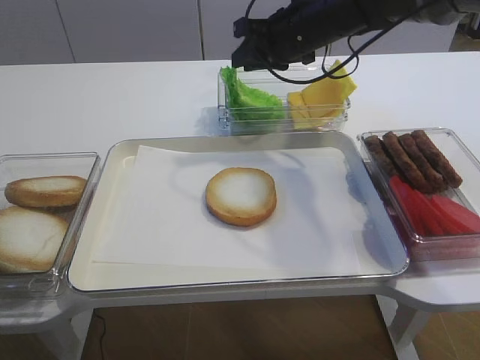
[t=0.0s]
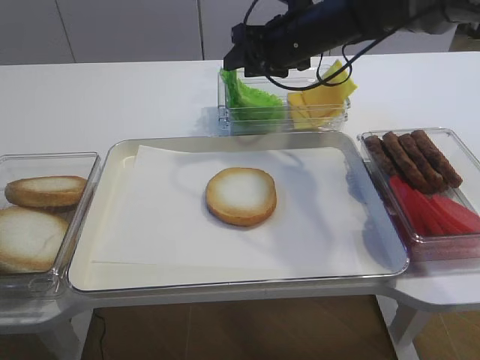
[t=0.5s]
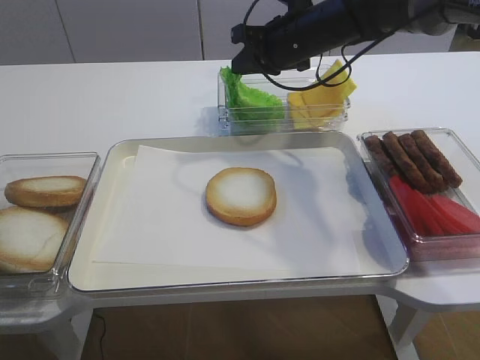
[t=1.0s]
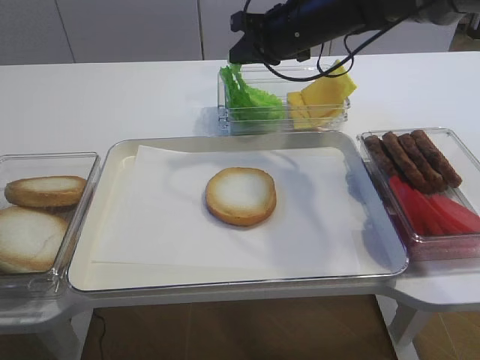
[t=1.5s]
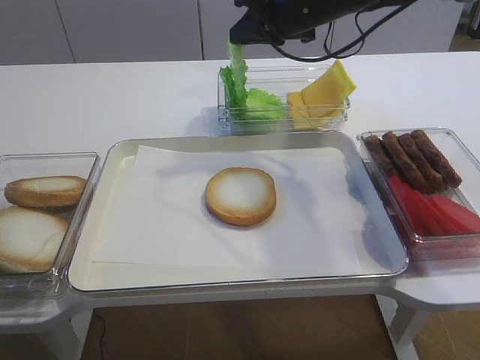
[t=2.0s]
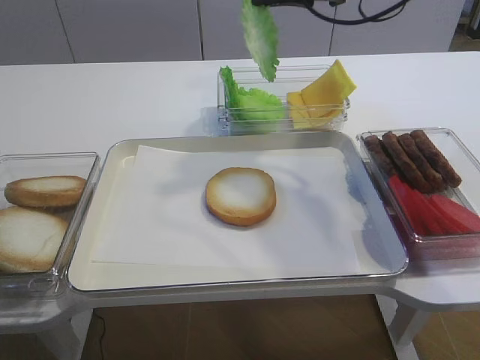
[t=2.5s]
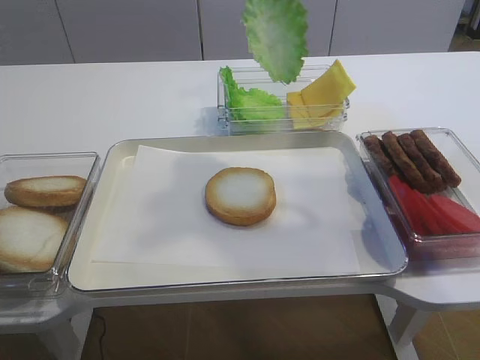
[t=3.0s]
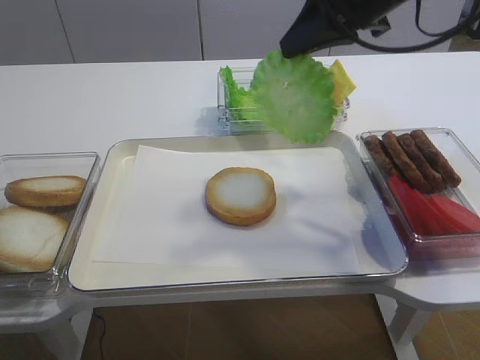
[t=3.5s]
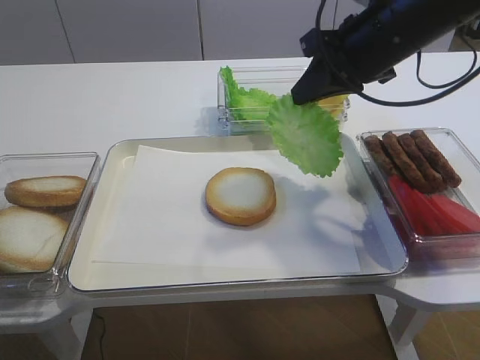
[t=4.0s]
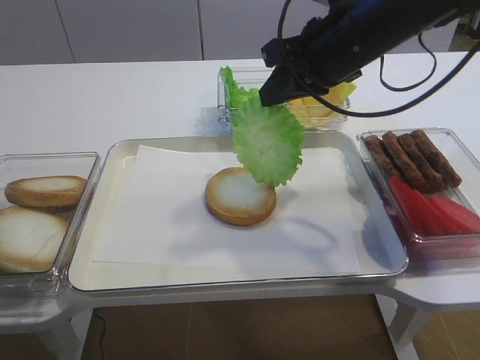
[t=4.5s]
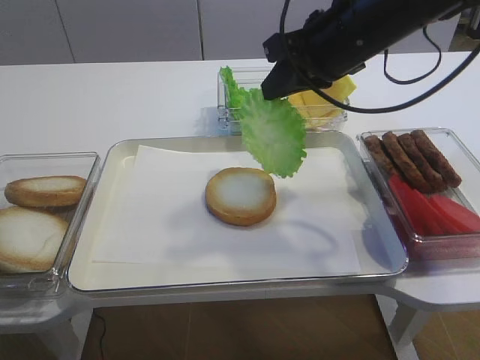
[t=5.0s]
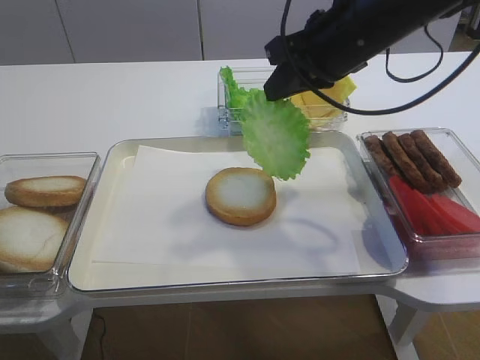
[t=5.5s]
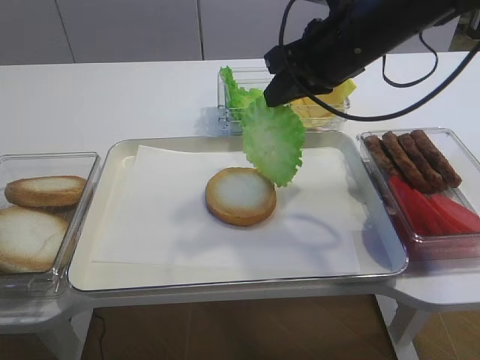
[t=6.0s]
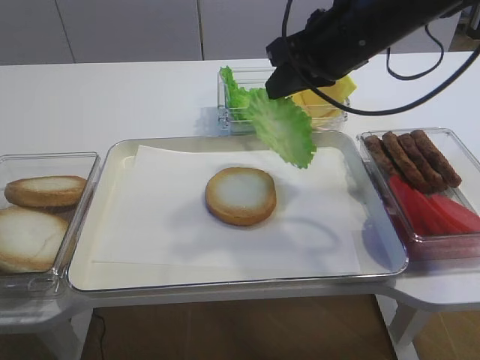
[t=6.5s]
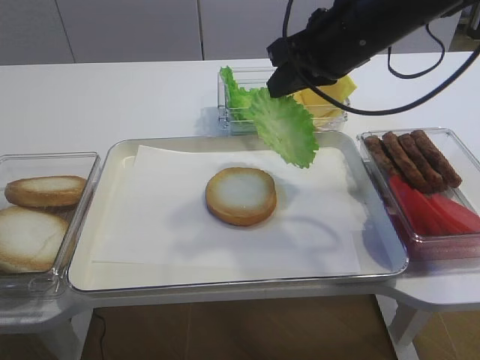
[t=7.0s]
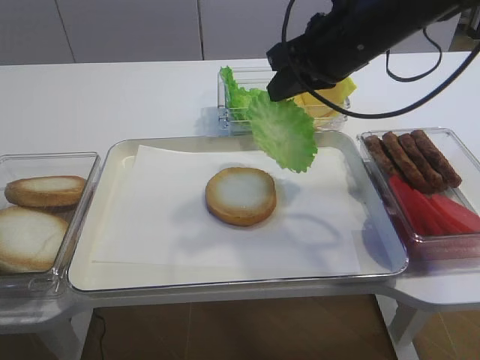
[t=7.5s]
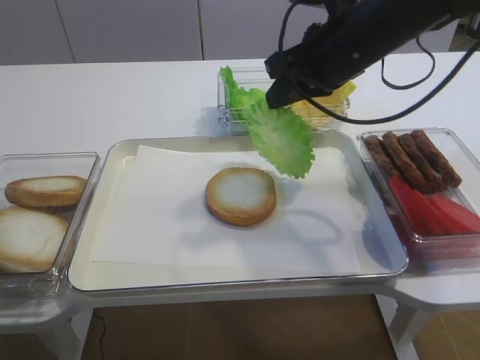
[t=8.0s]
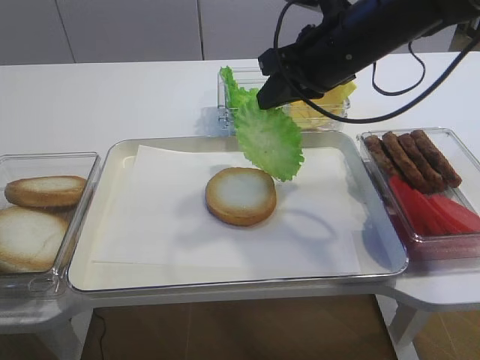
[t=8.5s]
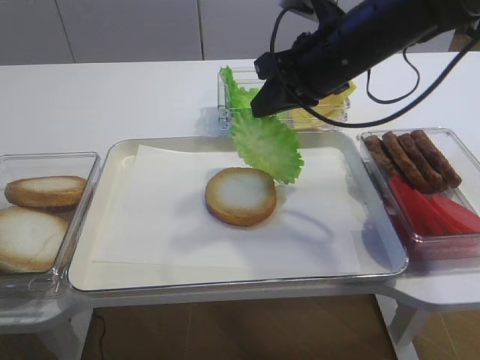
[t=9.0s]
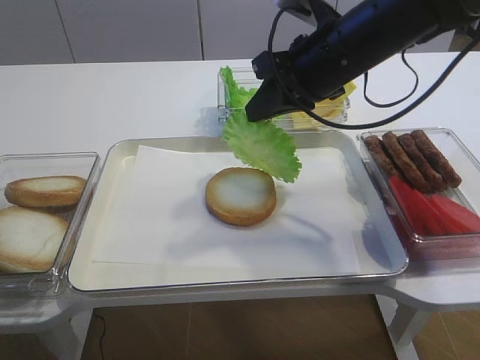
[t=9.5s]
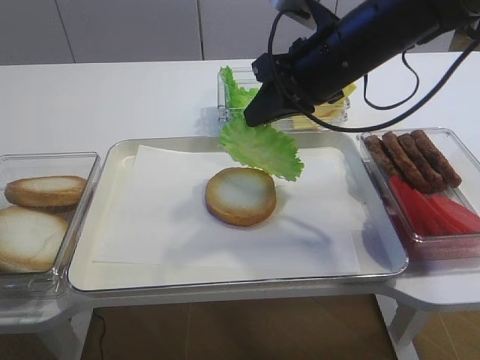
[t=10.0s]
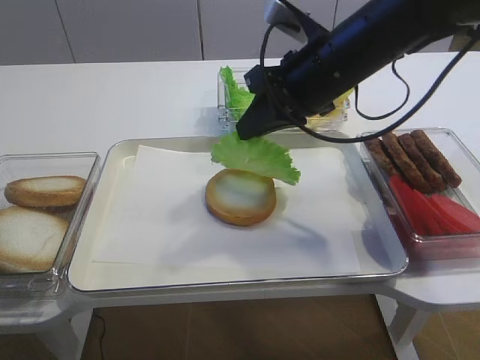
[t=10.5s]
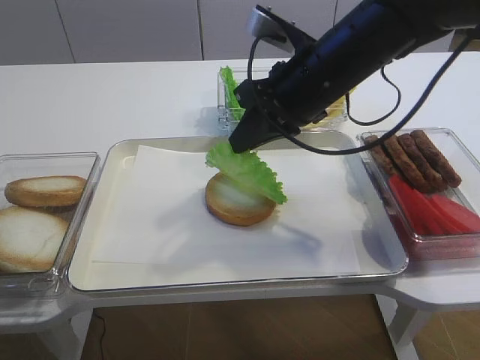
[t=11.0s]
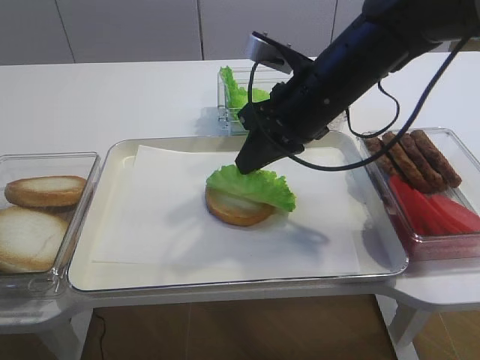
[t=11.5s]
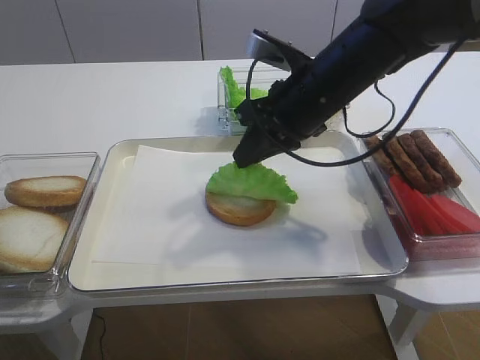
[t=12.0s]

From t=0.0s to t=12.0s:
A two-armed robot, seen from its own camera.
Step, from t=0.0s to t=2.0s: Pick up the lettuce leaf with the right gripper.
From t=0.0s to t=2.0s: The right gripper opens, then closes again.
From t=2.0s to t=4.0s: The right gripper is displaced backward and to the right by about 10 cm.
From t=4.0s to t=6.0s: The grippers stay close to where they were, moving slightly.
From t=6.0s to t=8.0s: The two grippers keep their place.
From t=8.0s to t=10.0s: The grippers make only small movements.
From t=10.0s to t=12.0s: The grippers stay close to where they were, moving slightly.

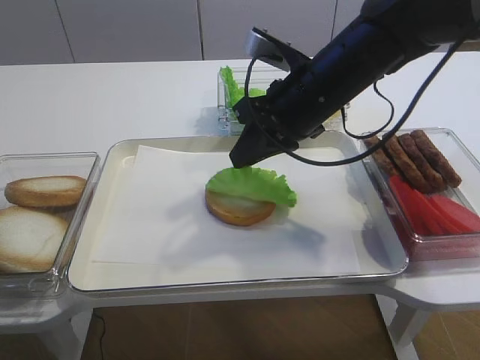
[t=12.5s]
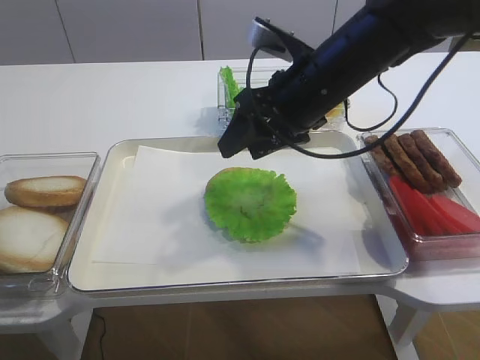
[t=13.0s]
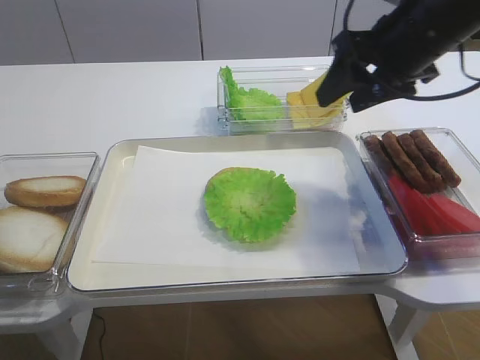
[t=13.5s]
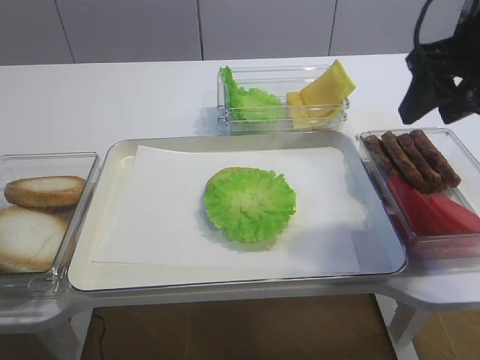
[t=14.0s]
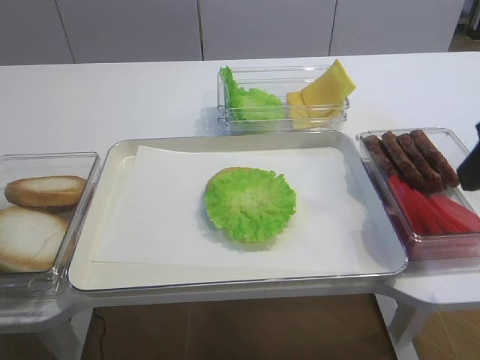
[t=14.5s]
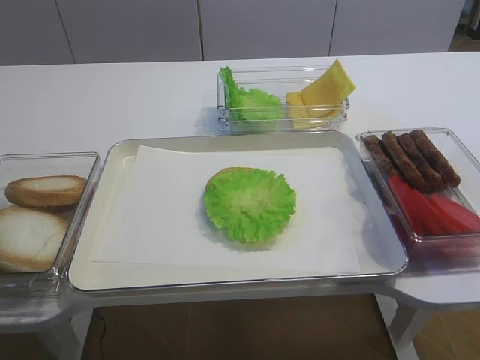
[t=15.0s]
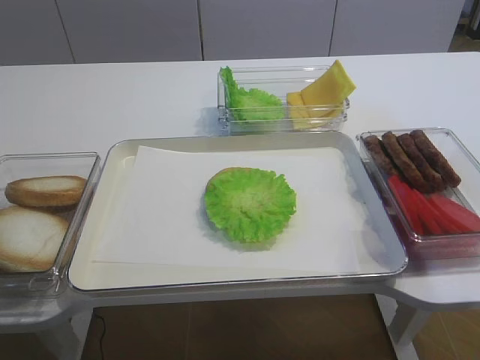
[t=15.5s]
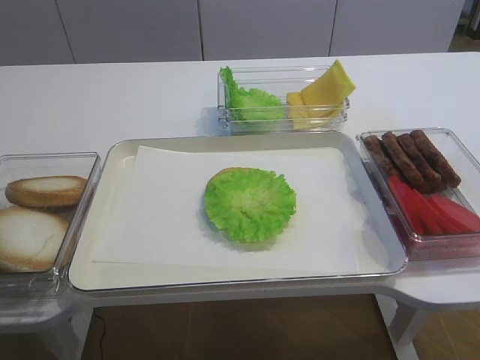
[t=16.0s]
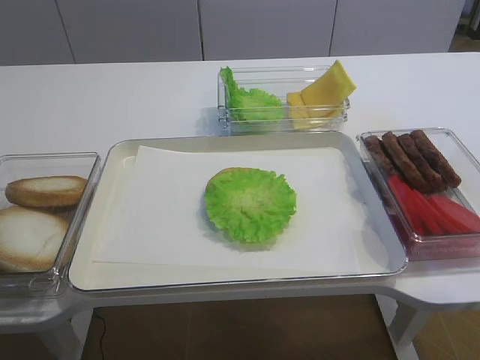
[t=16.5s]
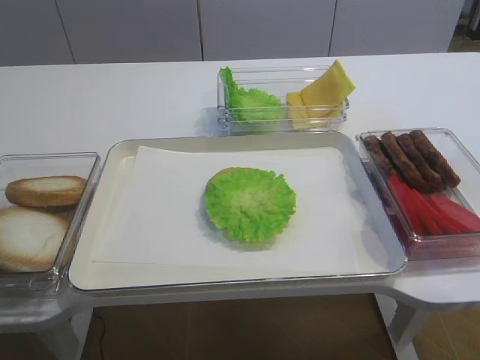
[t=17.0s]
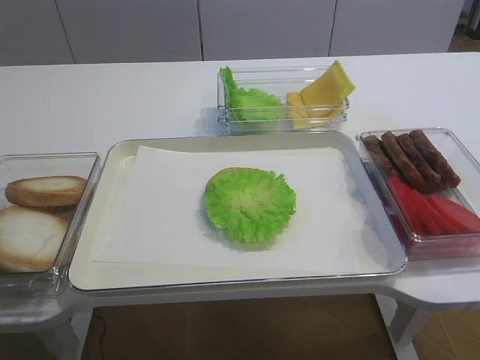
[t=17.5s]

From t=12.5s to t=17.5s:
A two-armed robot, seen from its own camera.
From t=12.5s to t=15.0s: The right gripper travels backward and to the right by about 30 cm, and opens up.
From t=15.0s to t=17.5s: The right gripper shifts approximately 10 cm backward.

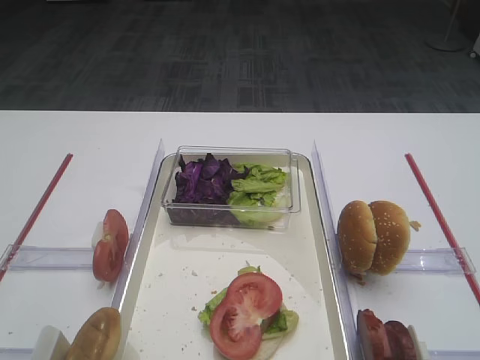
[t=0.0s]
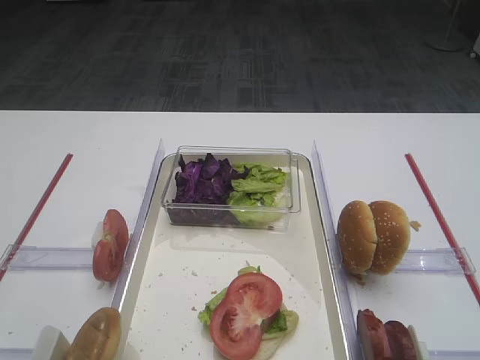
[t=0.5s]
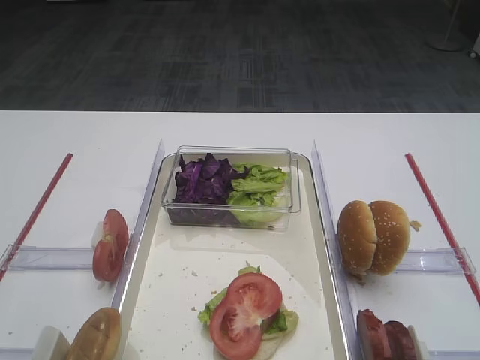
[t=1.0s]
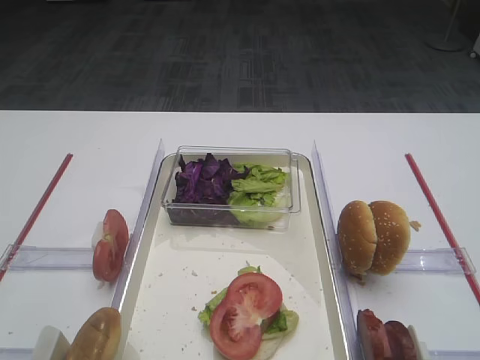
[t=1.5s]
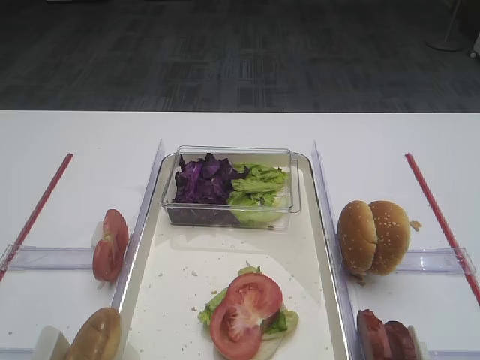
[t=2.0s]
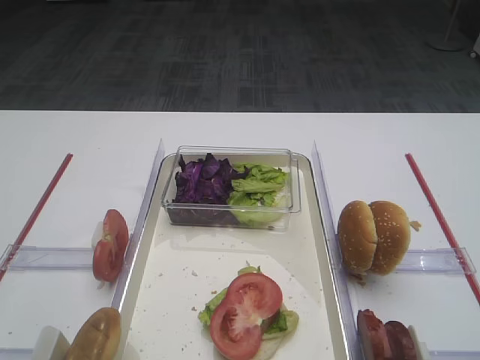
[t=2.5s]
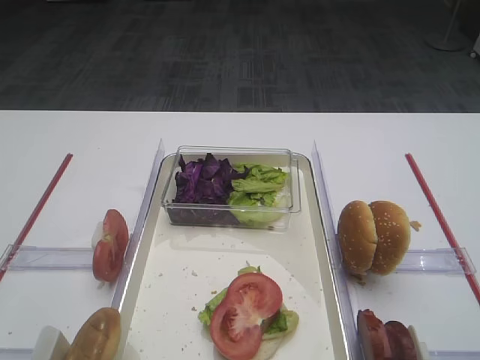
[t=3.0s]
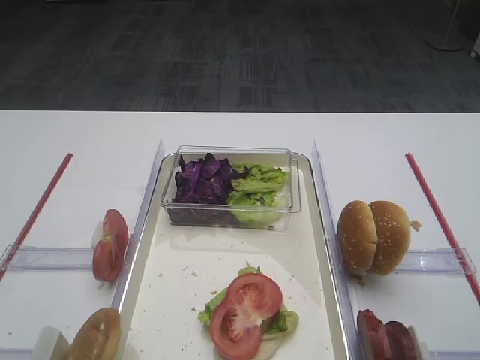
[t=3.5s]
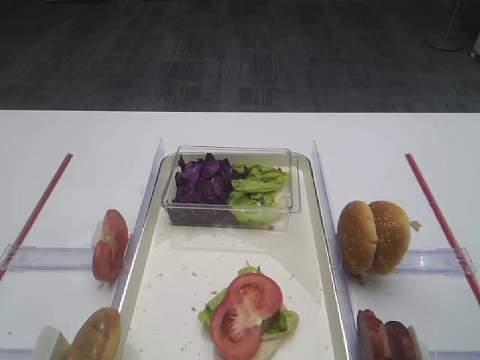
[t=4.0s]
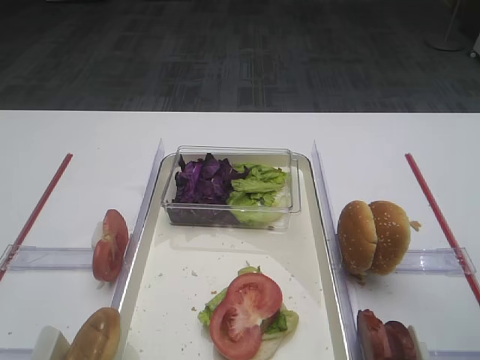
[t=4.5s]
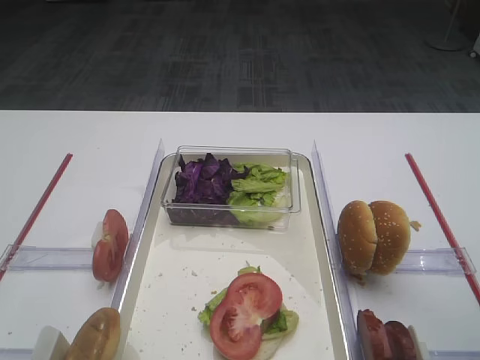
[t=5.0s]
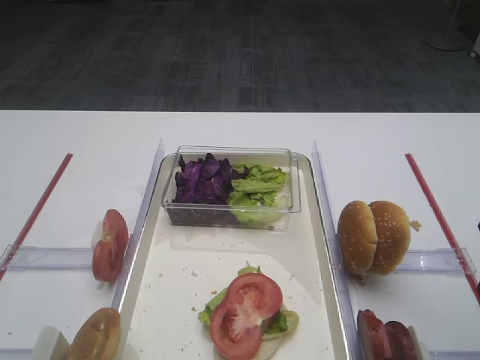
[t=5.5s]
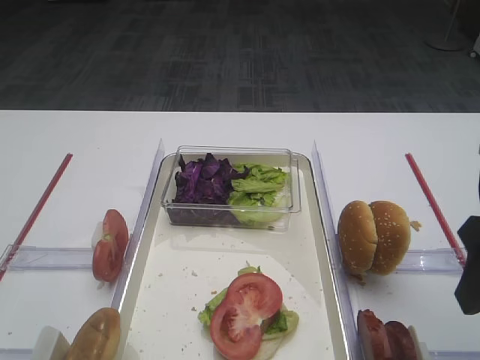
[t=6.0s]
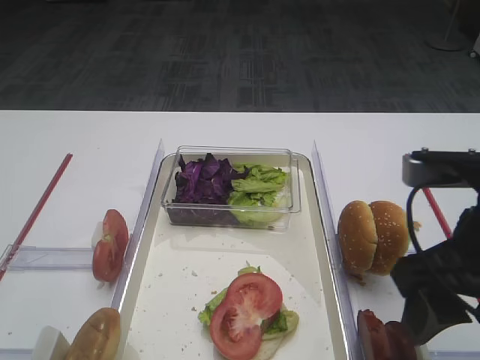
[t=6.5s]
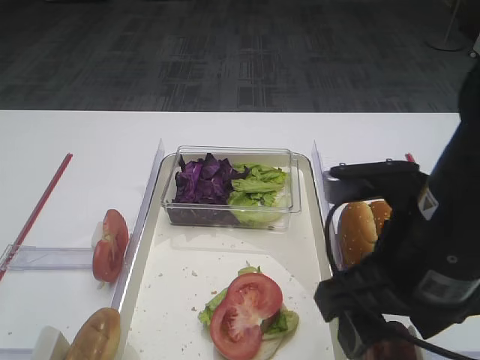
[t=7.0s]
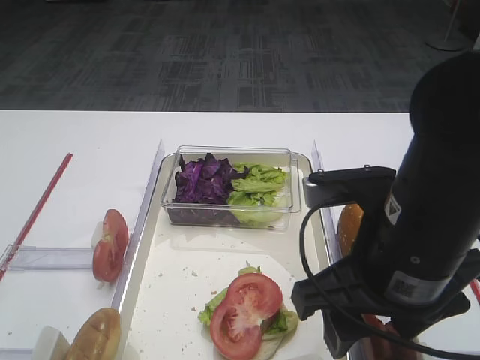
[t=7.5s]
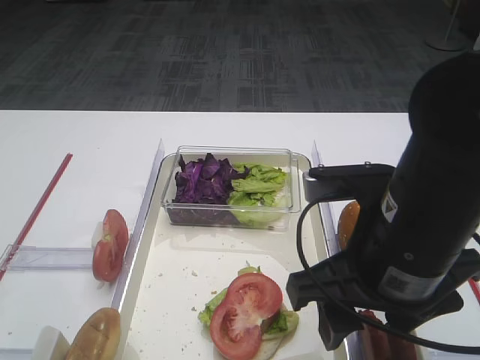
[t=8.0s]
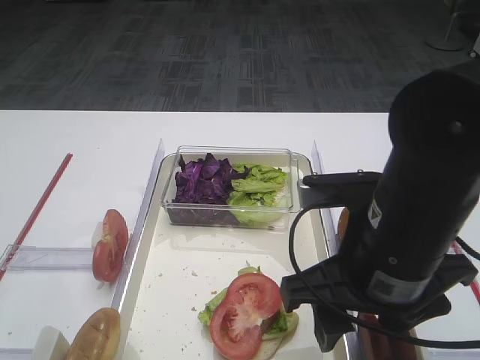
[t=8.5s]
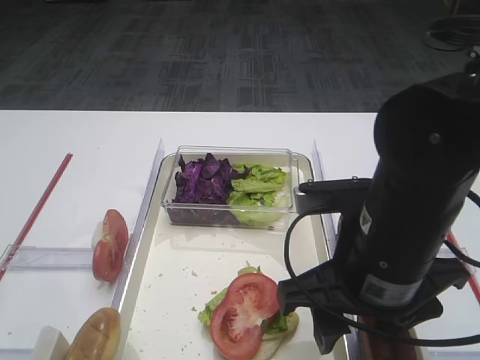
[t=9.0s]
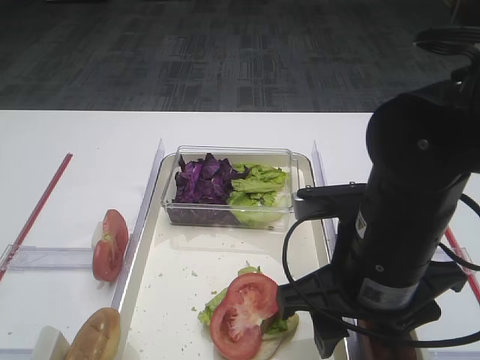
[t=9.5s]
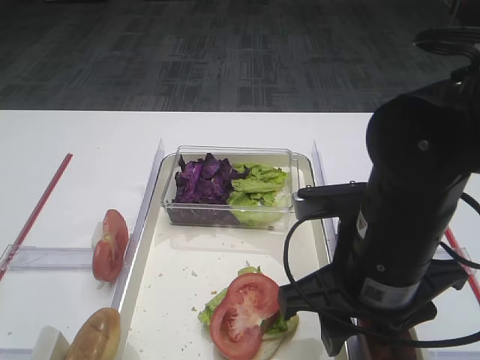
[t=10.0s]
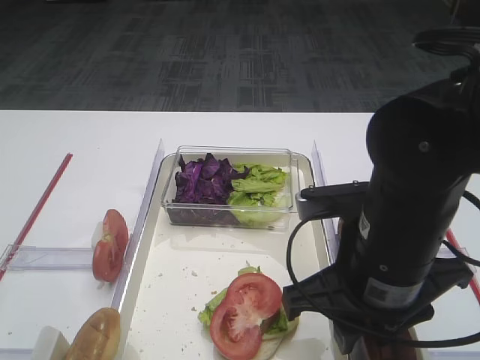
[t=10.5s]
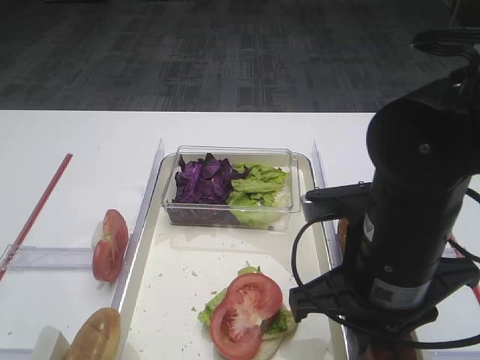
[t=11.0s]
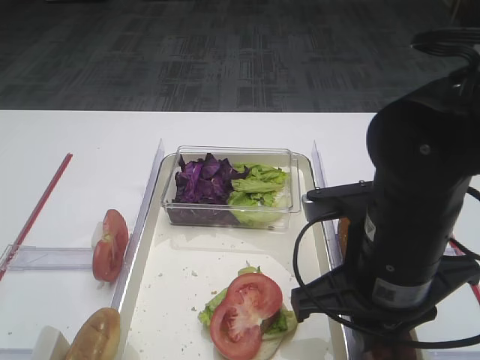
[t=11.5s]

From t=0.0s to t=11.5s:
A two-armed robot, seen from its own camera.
From t=4.0s to t=6.0s: The grippers move only a little.
From t=6.0s to t=7.5s: The right gripper moves to the left, some 15 cm.
From t=7.5s to t=9.5s: The grippers make only small movements.
From t=9.5s to t=11.5s: The right gripper closes its fingers.
